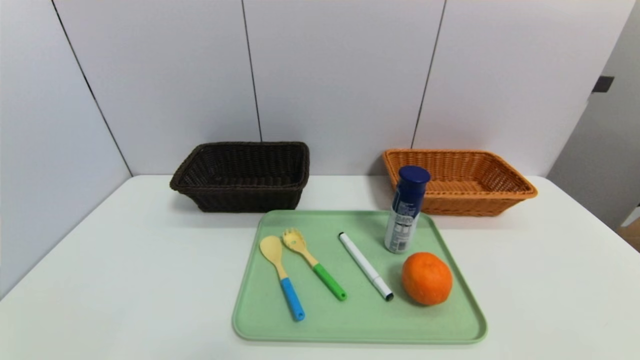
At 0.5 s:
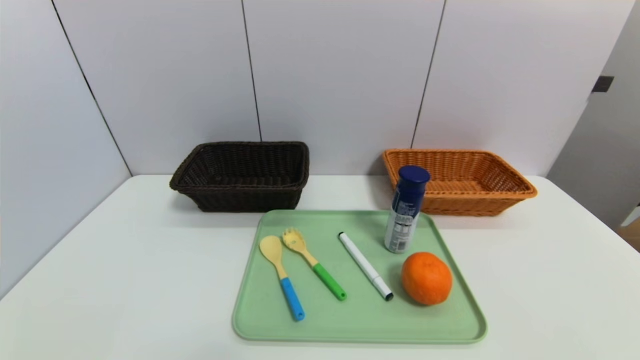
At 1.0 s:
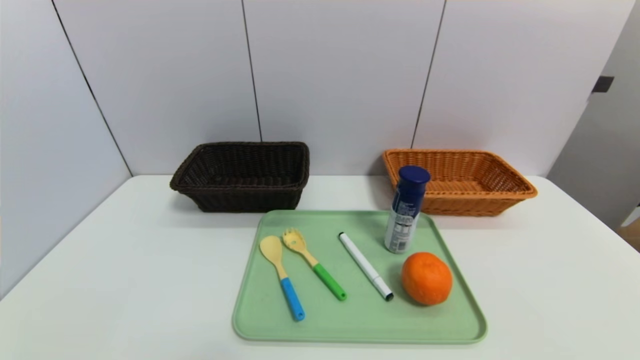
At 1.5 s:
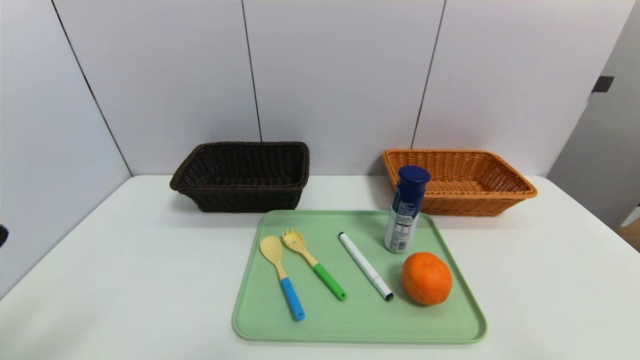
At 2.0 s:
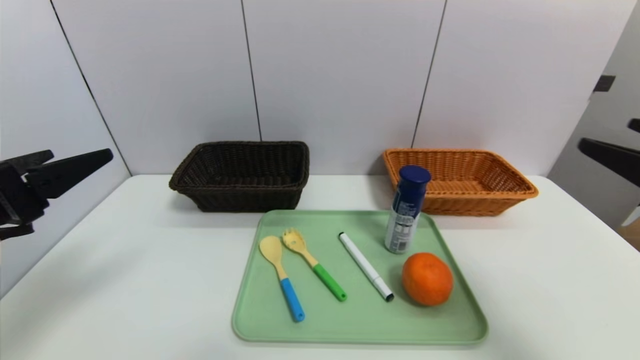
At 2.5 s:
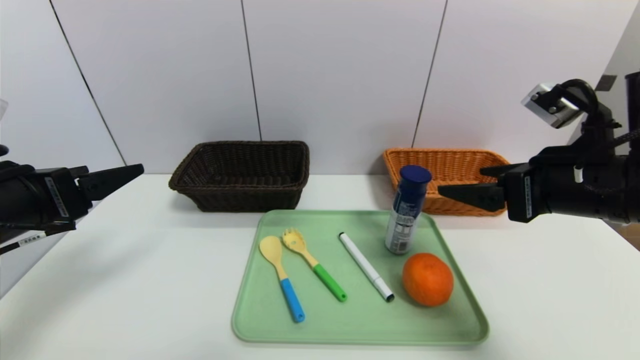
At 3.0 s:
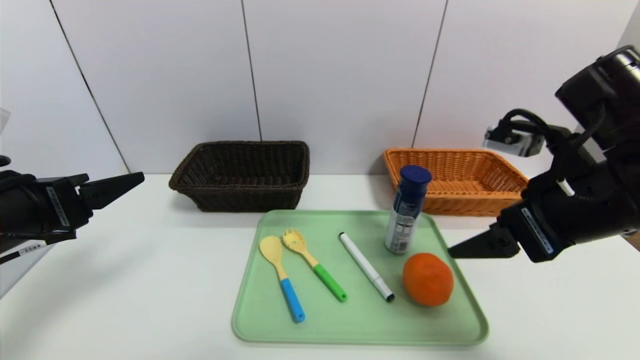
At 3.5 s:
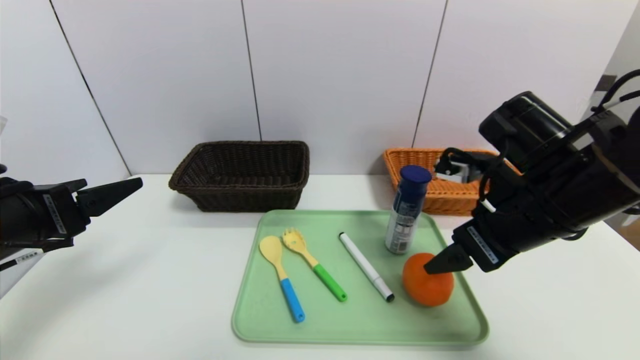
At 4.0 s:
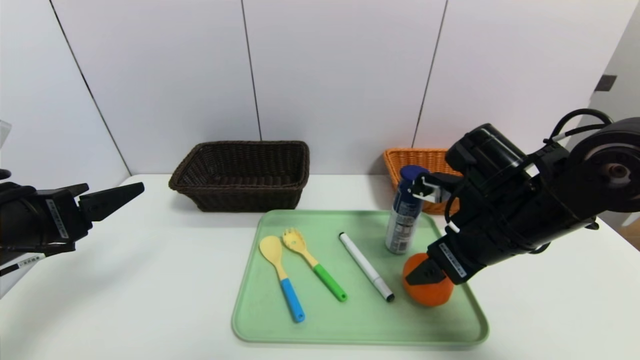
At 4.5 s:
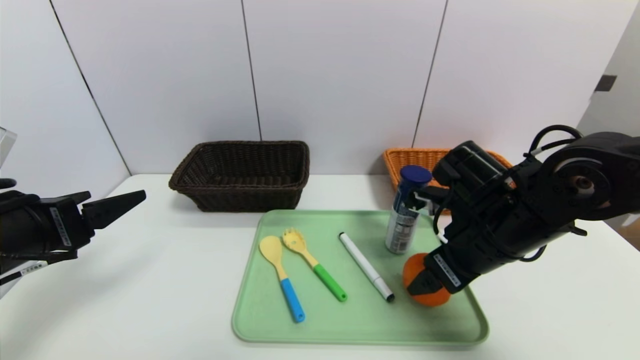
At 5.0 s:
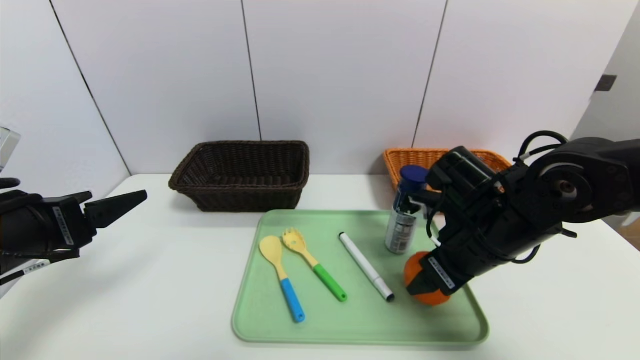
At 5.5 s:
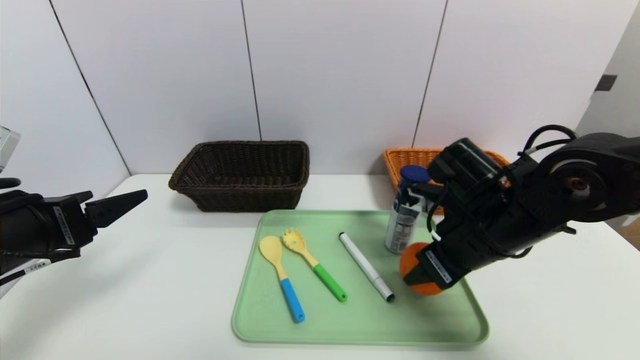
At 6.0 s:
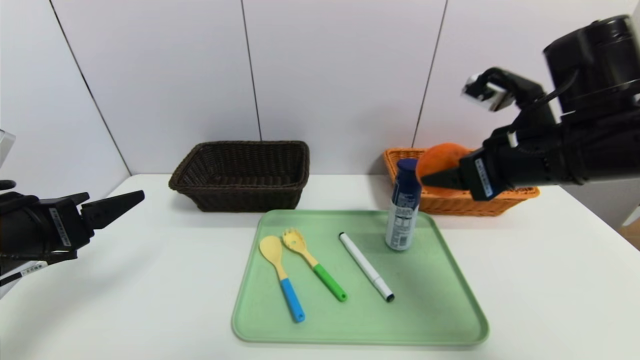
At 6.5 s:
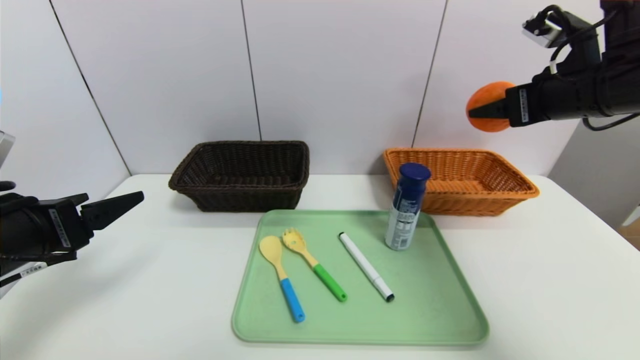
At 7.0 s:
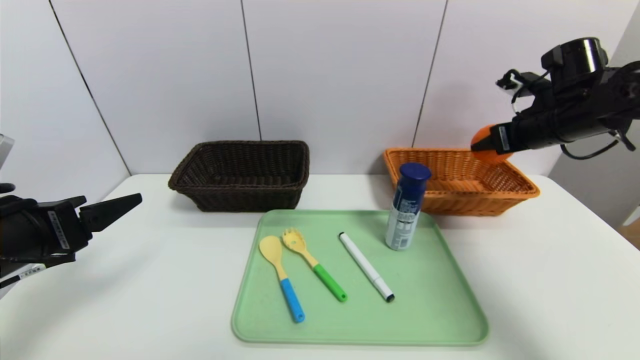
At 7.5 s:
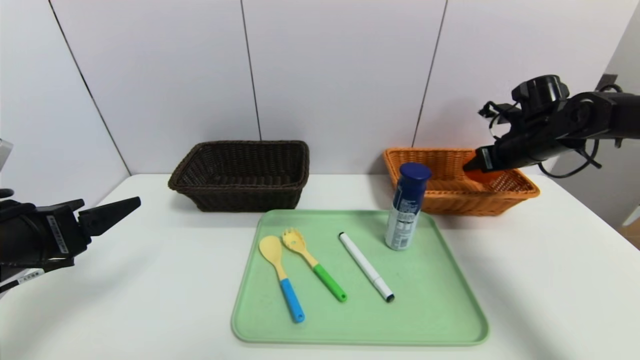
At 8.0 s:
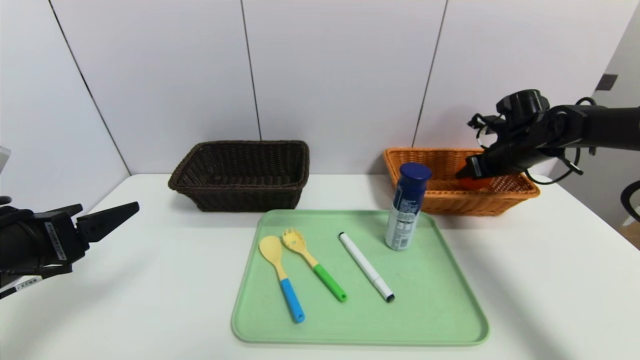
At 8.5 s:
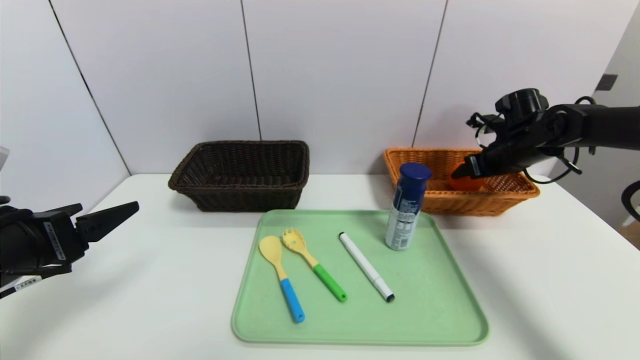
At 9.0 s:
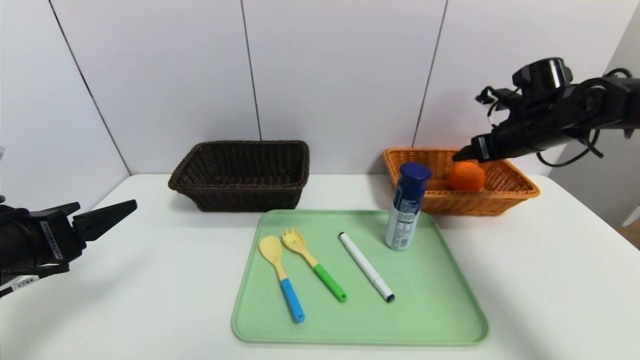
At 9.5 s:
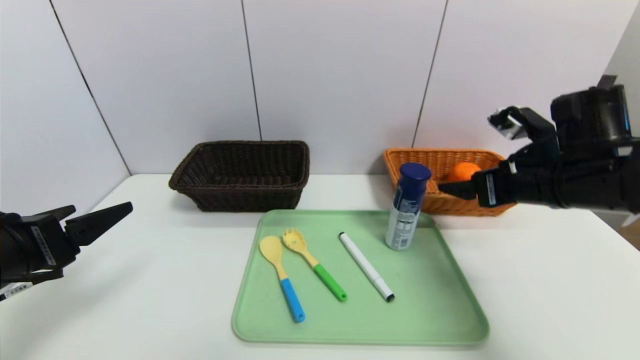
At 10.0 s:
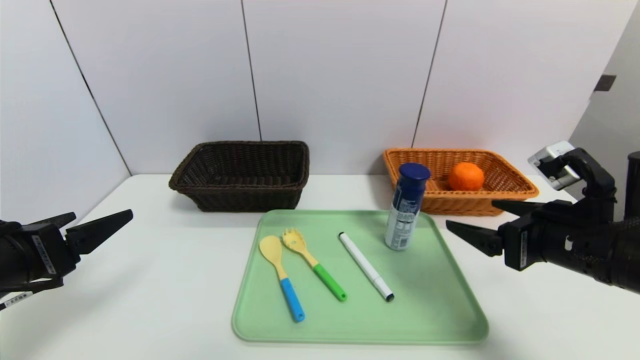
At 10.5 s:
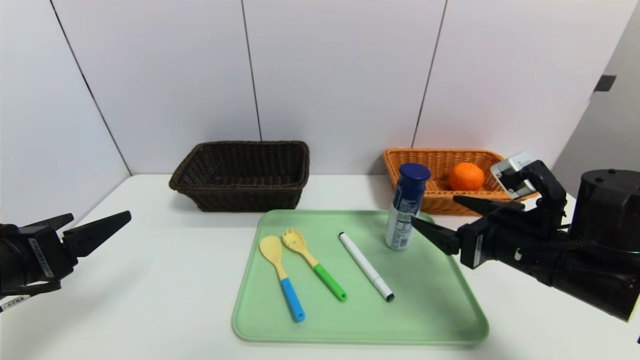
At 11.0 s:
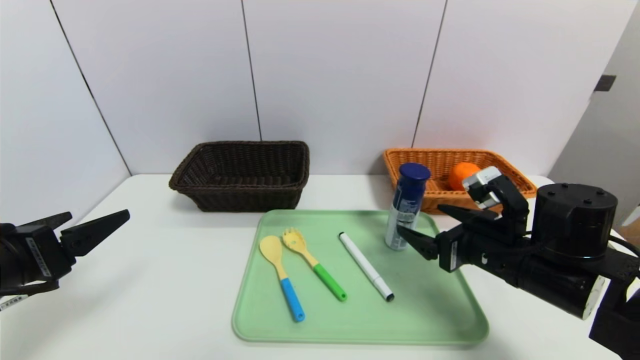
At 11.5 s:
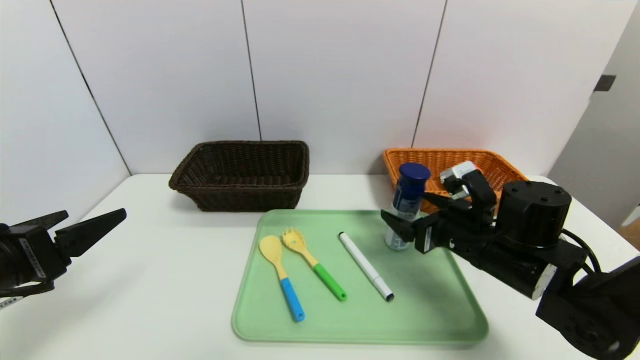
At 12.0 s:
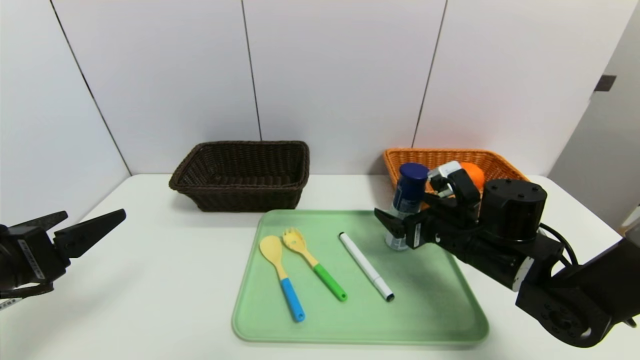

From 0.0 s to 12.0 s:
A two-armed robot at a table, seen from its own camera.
Task of the whole recording: place the food in the right basket with the right gripper, and place the non food items in the left basket with the left gripper.
Step, from 0.0 s to 9.0 s: Grasp the orange and put it in the right basket.
From 0.0 s to 2.0 s: The two grippers go roughly 25 cm upward and forward.
From 2.0 s to 4.0 s: The right gripper goes roughly 20 cm to the left, forward and downward.
From 4.0 s to 6.0 s: The right gripper shifts roughly 10 cm upward, and closes up.
From 6.0 s to 8.0 s: The right gripper heads forward, to the right and downward, covering about 25 cm.
From 8.0 s to 10.0 s: The right gripper travels backward by roughly 25 cm, and opens up.
From 10.0 s to 12.0 s: The right gripper is displaced forward, downward and to the left by some 15 cm.

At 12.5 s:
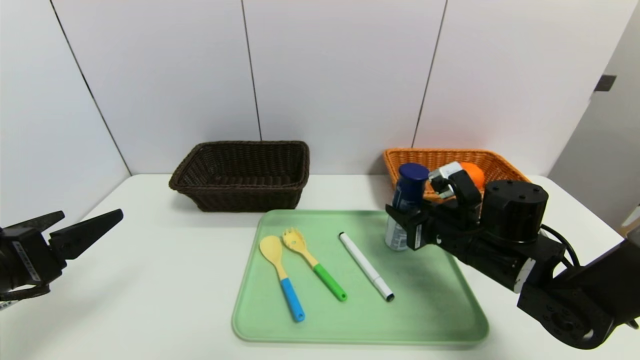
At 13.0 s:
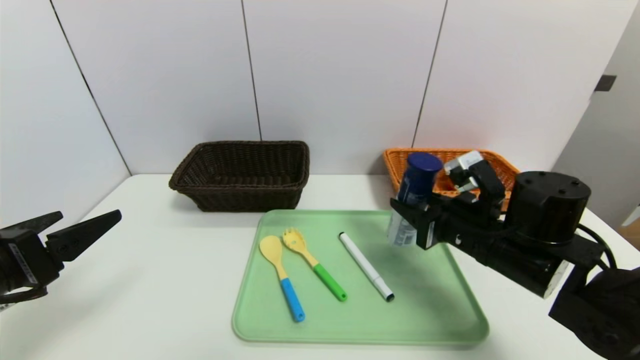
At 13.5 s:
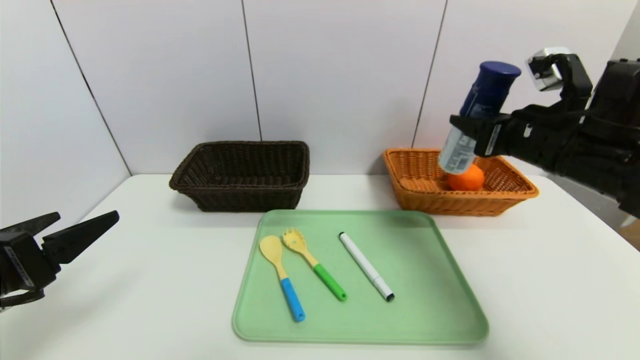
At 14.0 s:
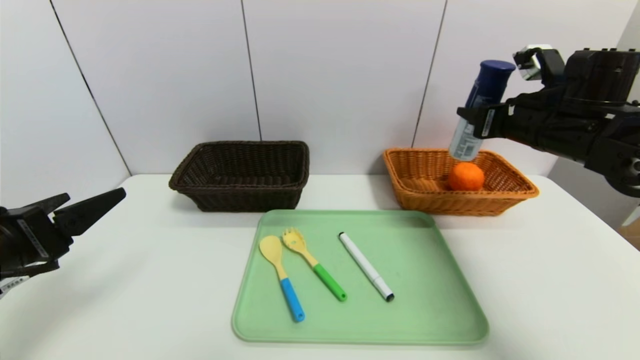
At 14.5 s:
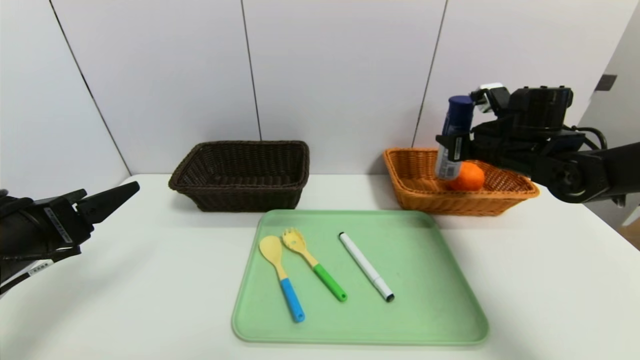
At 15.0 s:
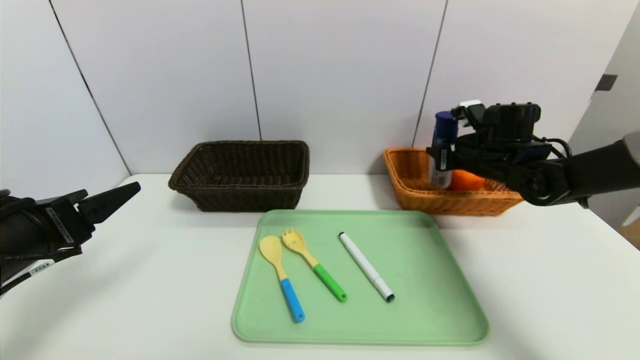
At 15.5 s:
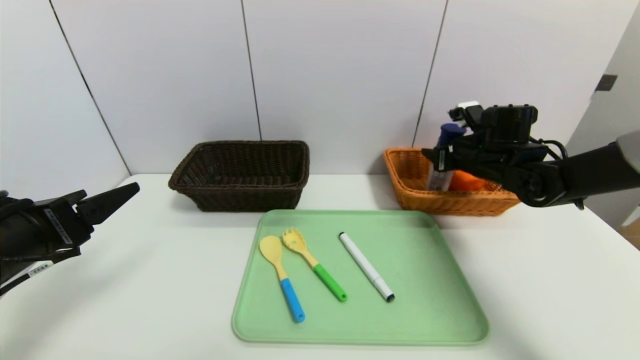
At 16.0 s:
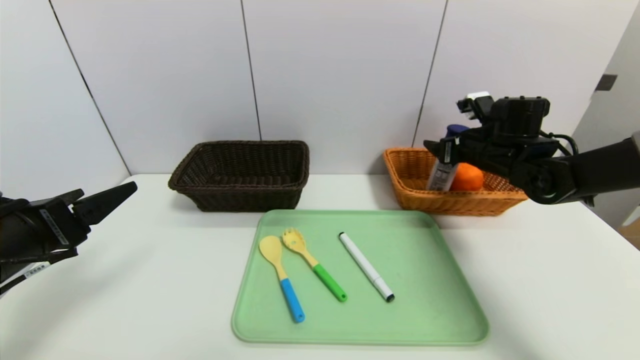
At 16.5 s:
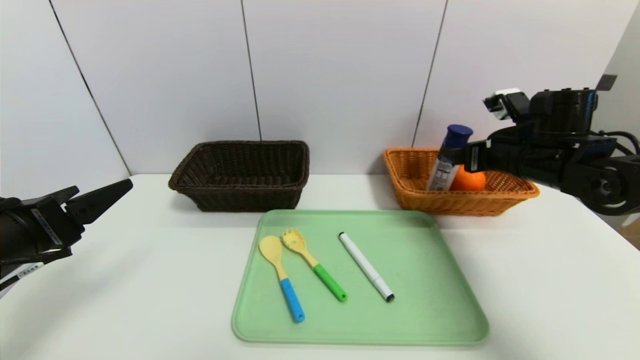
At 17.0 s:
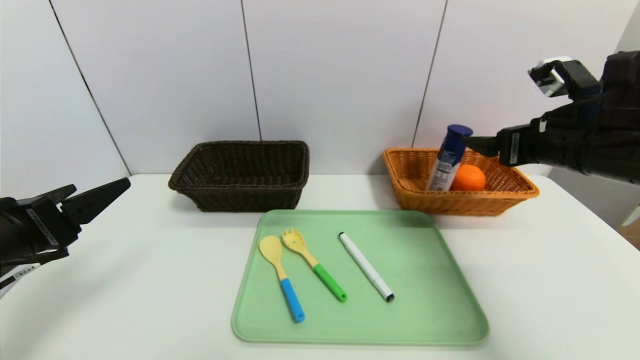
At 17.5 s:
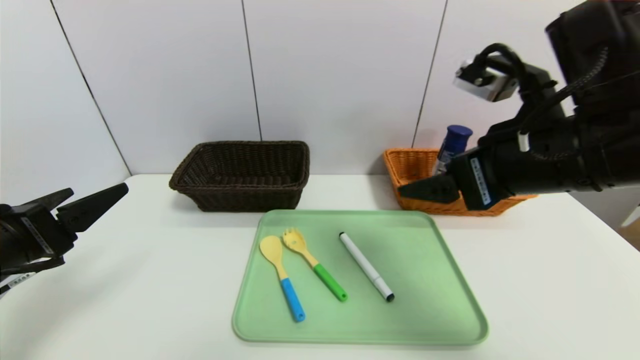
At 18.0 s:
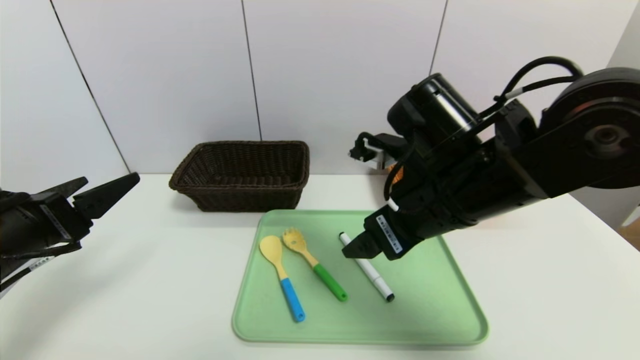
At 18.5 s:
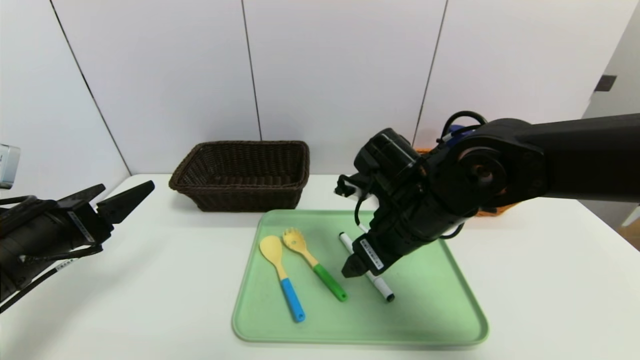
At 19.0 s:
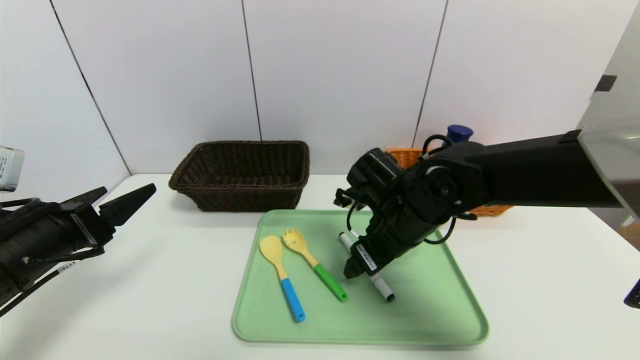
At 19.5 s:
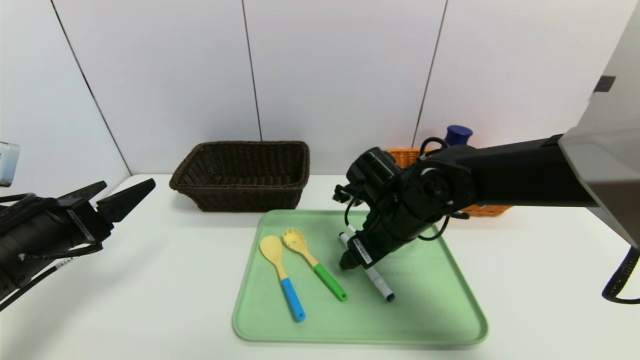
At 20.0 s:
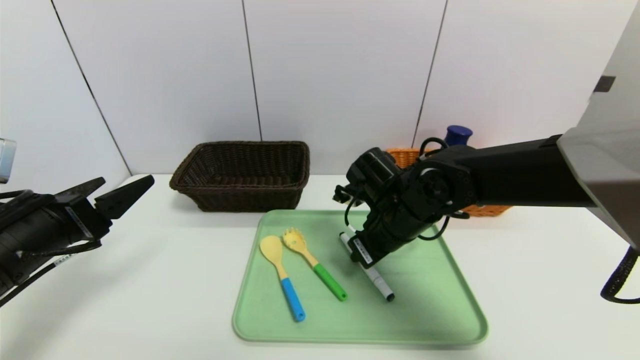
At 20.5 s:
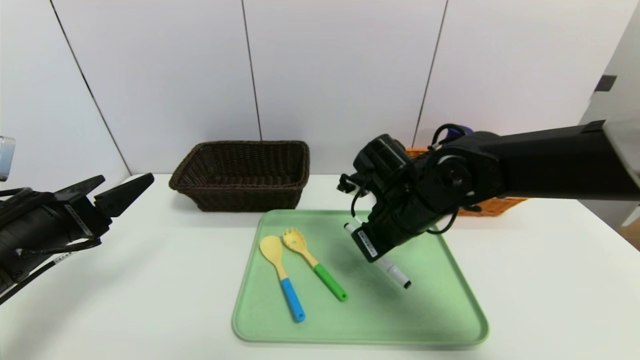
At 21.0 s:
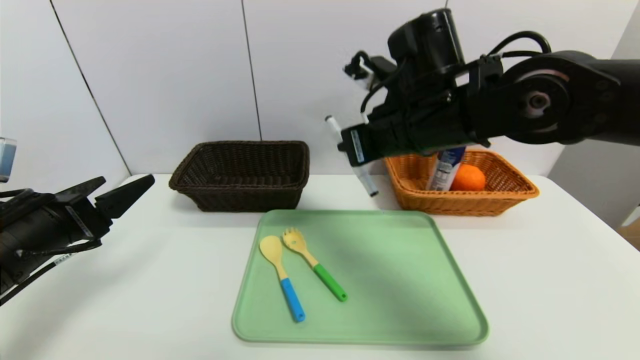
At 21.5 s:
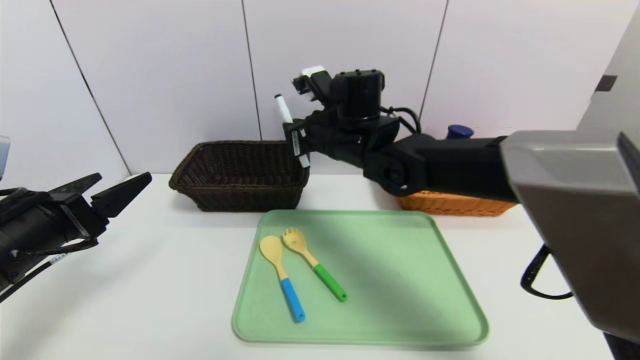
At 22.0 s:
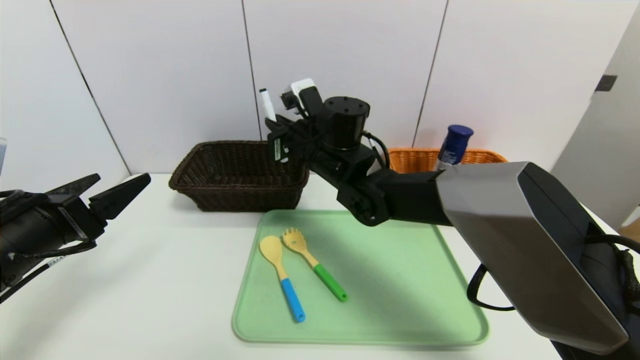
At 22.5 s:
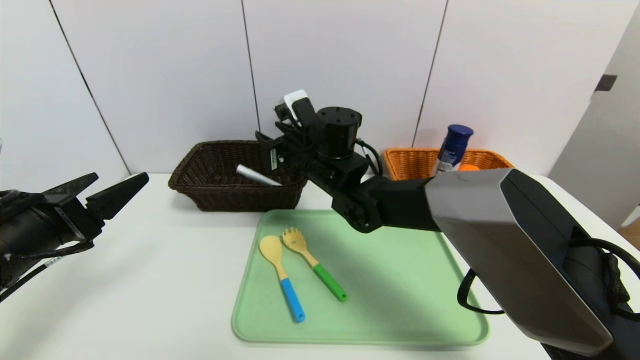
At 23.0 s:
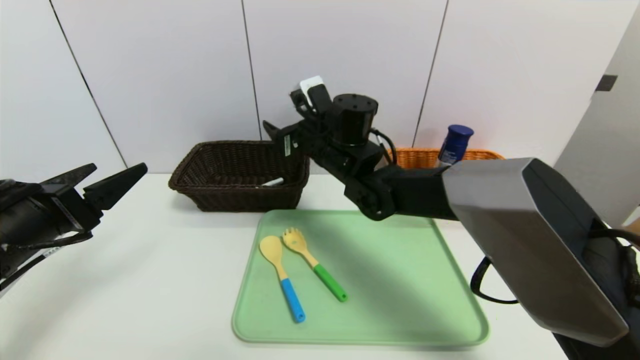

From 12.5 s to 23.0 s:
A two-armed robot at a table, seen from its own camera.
Task of the whole recording: place the food in the right basket with the right gripper, and place the non food items in the left basket with the left gripper.
Step, from 12.5 s to 16.5 s: Grasp the yogurt and put it in the right basket.
From 12.5 s to 14.5 s: The right gripper travels forward, upward and to the right by roughly 15 cm.
From 14.5 s to 16.5 s: The right gripper opens.
From 16.5 s to 19.0 s: The right gripper heads to the left, covering about 20 cm.
From 19.0 s to 21.0 s: The right gripper moves upward, approximately 15 cm, and closes.
From 21.0 s to 23.0 s: The right gripper moves forward, to the left and downward, approximately 15 cm, and opens its fingers.
